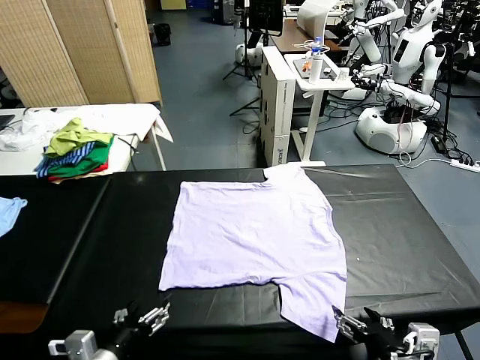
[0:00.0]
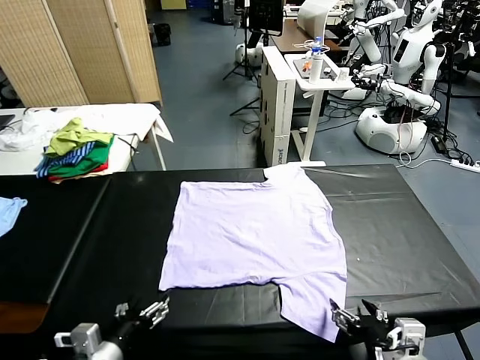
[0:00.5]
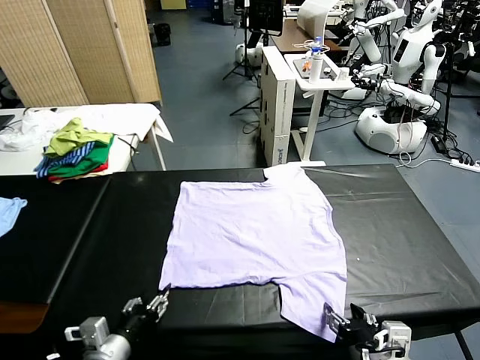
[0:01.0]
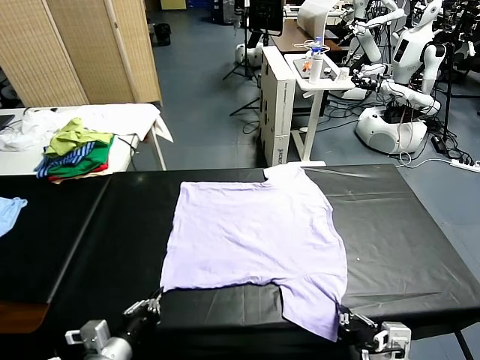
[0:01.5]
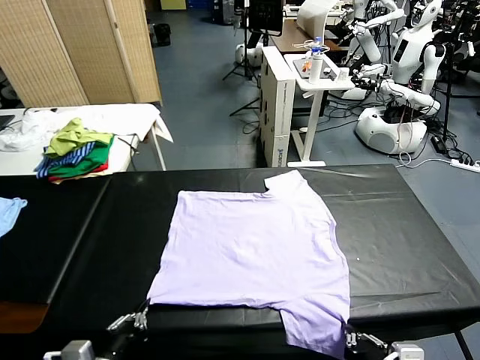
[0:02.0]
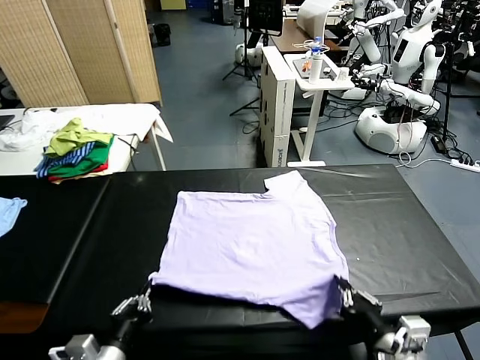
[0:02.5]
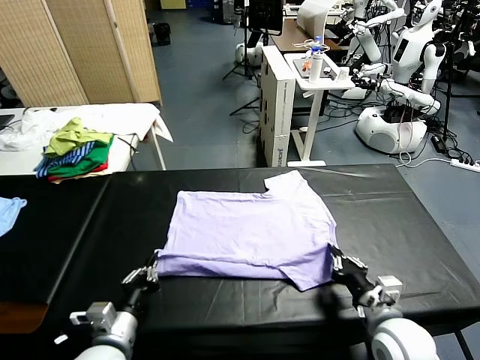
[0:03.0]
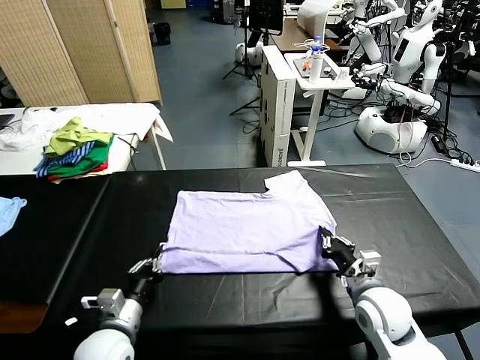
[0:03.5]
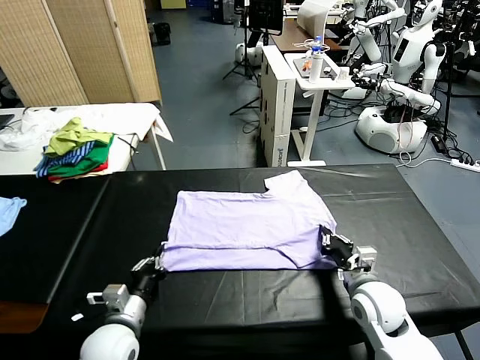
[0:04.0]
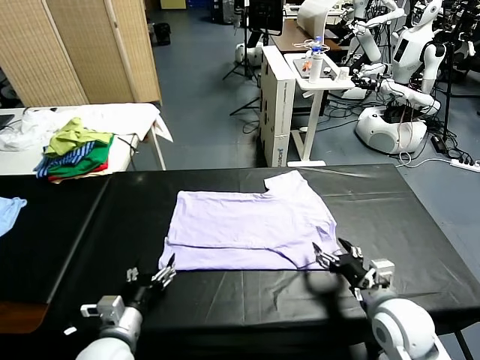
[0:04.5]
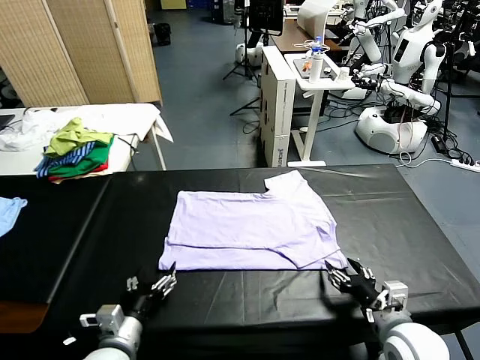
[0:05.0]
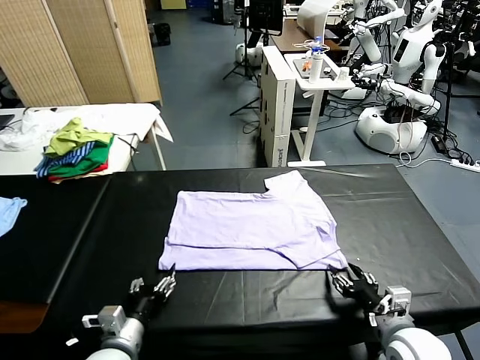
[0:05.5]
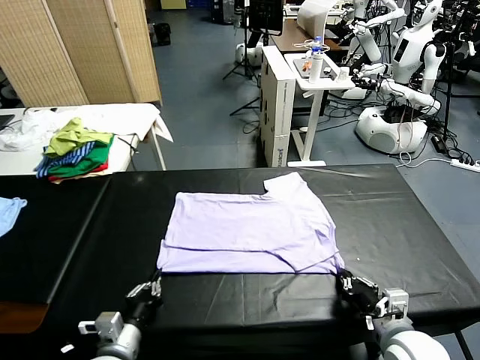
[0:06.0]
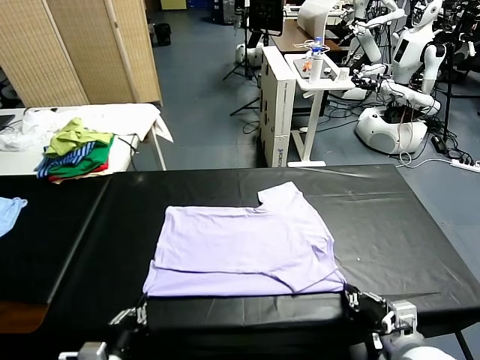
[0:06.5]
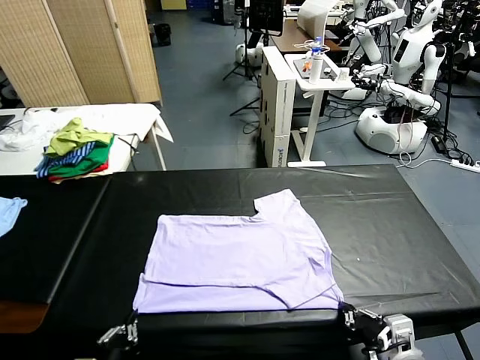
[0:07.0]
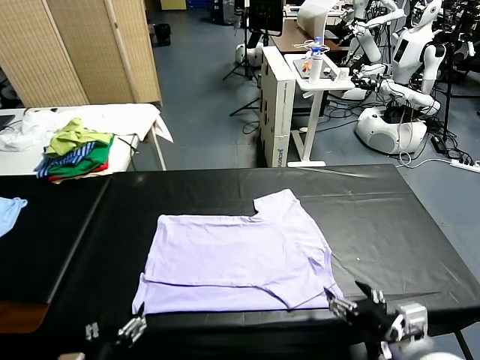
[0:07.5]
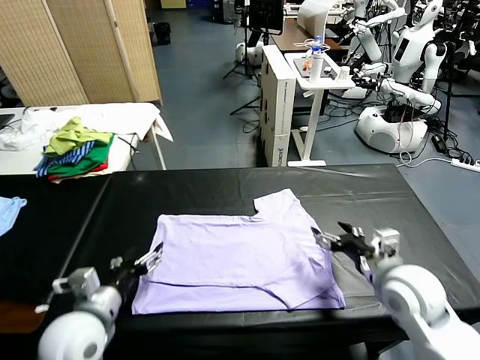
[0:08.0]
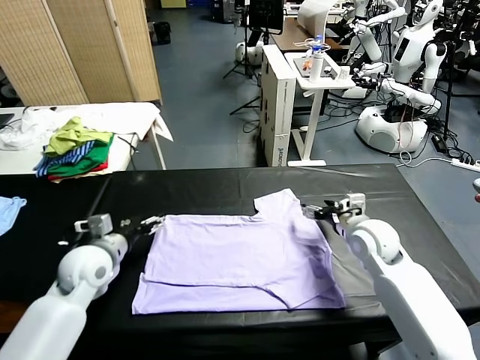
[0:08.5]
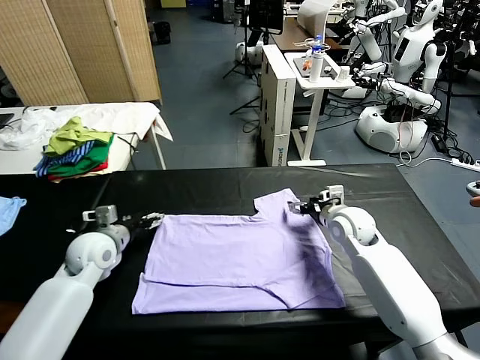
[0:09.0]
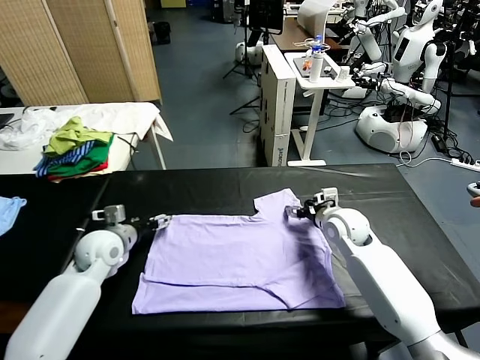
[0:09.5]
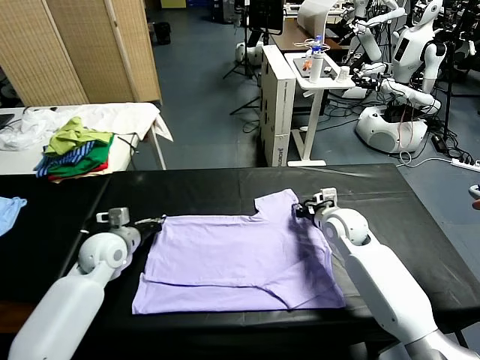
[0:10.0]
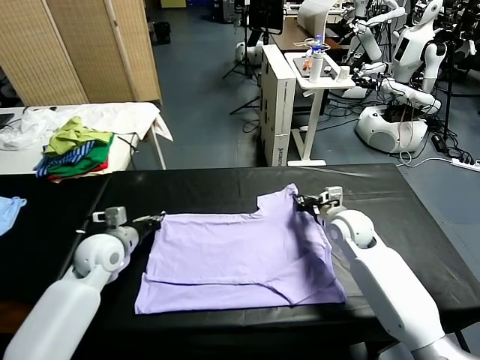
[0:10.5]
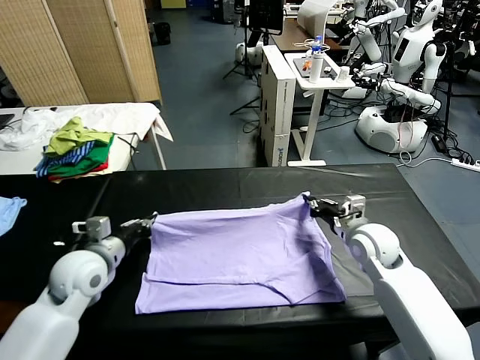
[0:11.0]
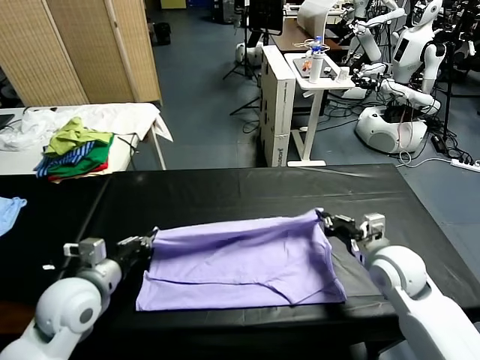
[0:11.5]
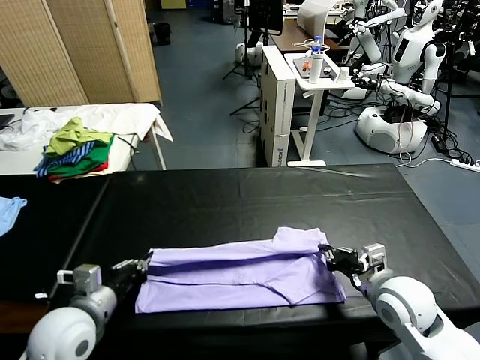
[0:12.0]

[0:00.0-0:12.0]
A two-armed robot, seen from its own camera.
Task of the whole recording: fold and organize the clothes.
Step, 0:00.0 to 0:01.5: use both grippers simultaneously to clamp the lower edge of the clothing fabric.
Step, 0:02.0 to 0:04.0: use both grippers to drag the lower edge of the fabric forward and fold it over the upper edge.
Step, 0:04.5 to 0:07.0: Drag the clothes downward with both gripper.
Step, 0:07.5 to 0:10.5: use both grippers simultaneously to clamp the upper edge of the clothing fabric.
0:02.0 to 0:04.0: The left gripper heads forward and downward, covering about 15 cm, and opens its fingers; the right gripper heads forward, covering roughly 15 cm, and opens its fingers.
0:04.0 to 0:06.0: The left gripper heads backward, covering about 5 cm, and closes; the right gripper travels backward by approximately 10 cm, and closes its fingers.
0:06.0 to 0:08.0: The right gripper moves forward, some 20 cm, and opens its fingers, while the left gripper shifts about 10 cm upward and forward, and opens its fingers.
0:08.0 to 0:10.0: The left gripper goes approximately 15 cm forward, and closes. Meanwhile the right gripper goes about 10 cm forward and downward, and closes its fingers.
0:10.0 to 0:12.0: The grippers both shift backward by approximately 20 cm.

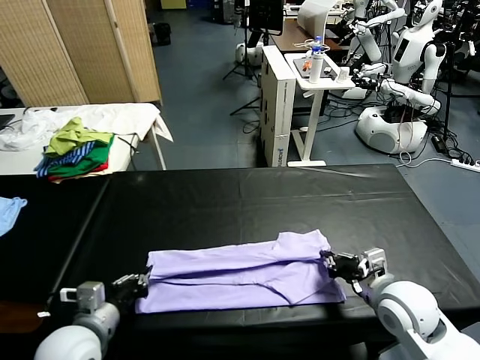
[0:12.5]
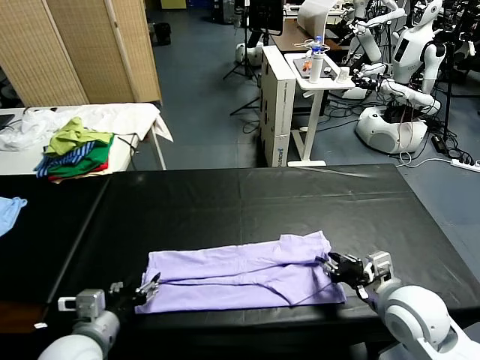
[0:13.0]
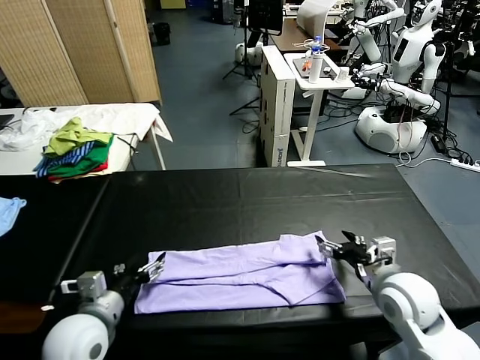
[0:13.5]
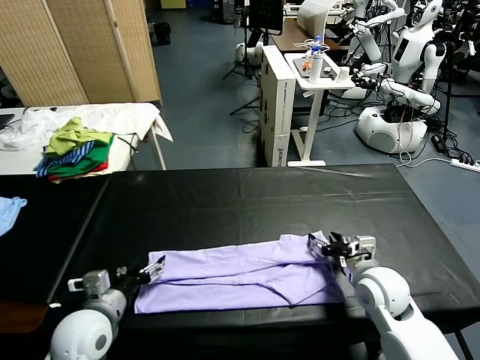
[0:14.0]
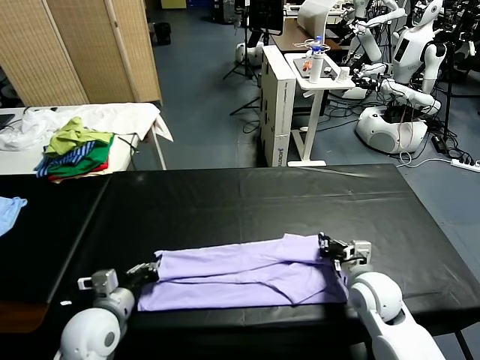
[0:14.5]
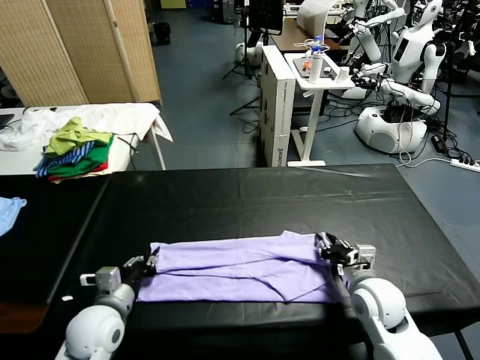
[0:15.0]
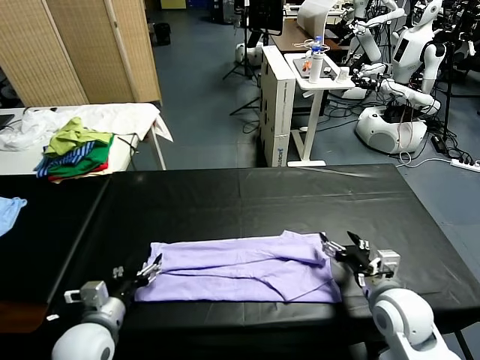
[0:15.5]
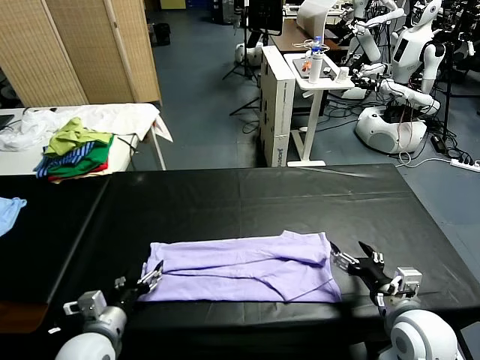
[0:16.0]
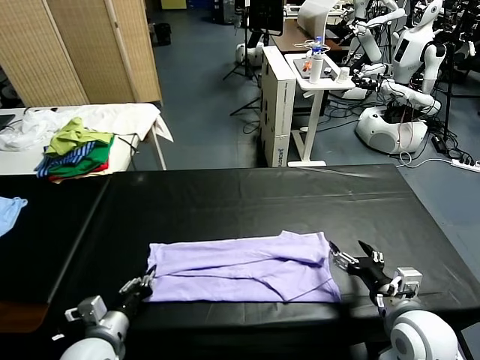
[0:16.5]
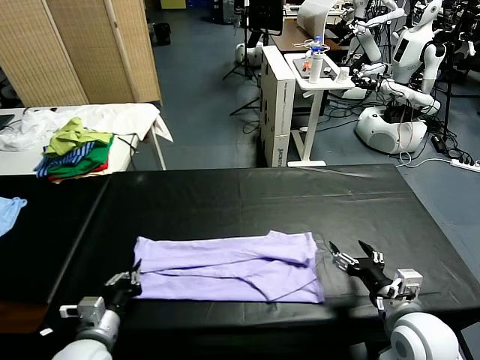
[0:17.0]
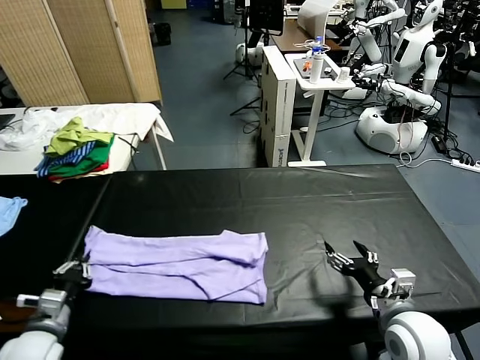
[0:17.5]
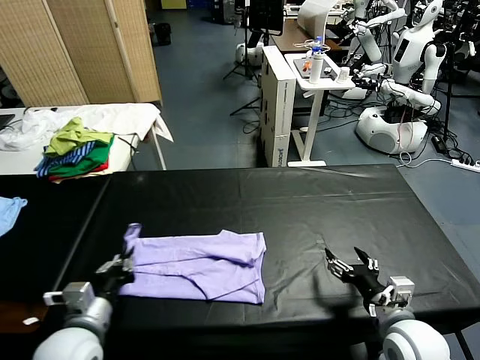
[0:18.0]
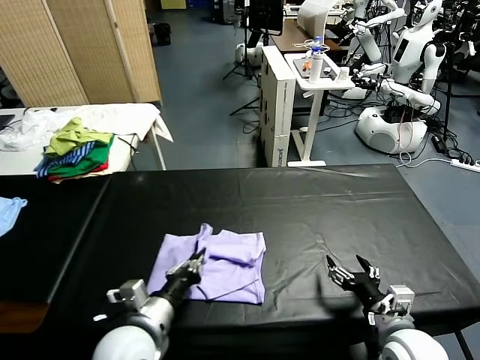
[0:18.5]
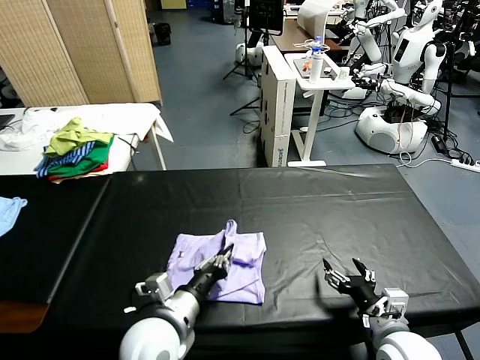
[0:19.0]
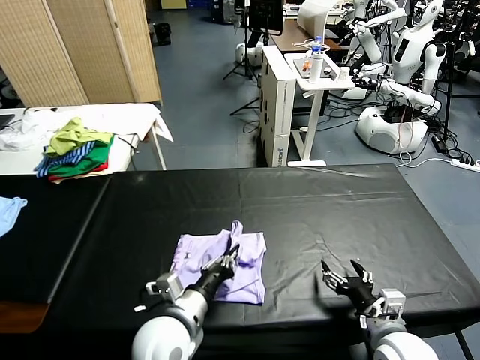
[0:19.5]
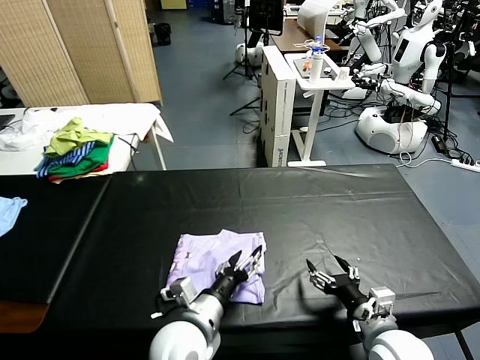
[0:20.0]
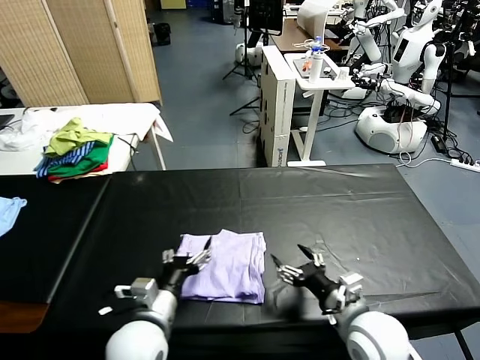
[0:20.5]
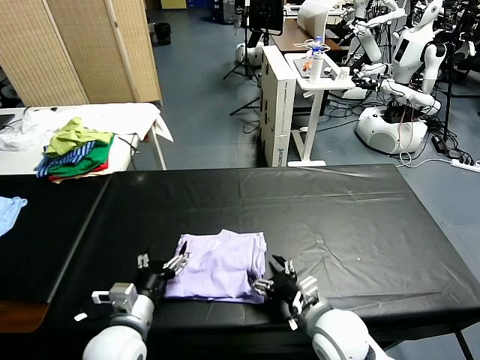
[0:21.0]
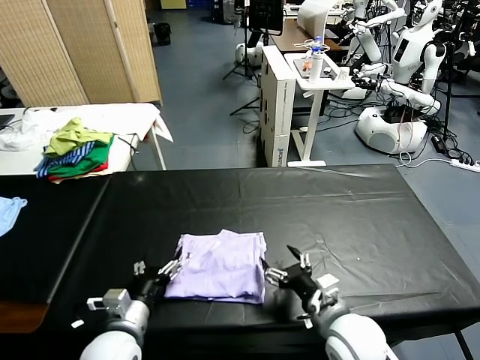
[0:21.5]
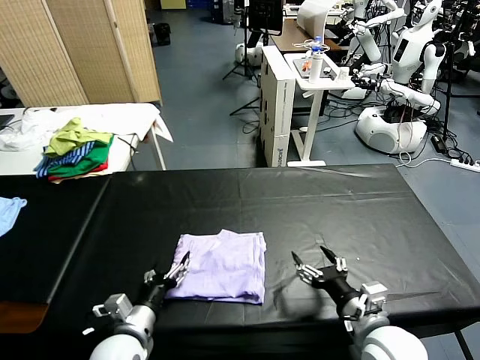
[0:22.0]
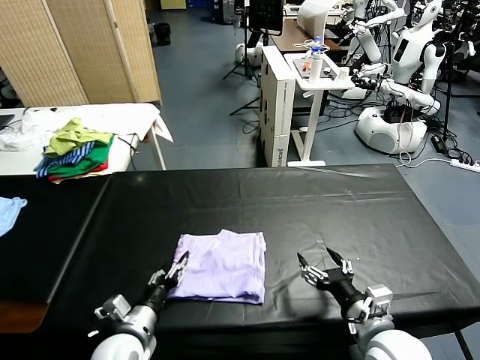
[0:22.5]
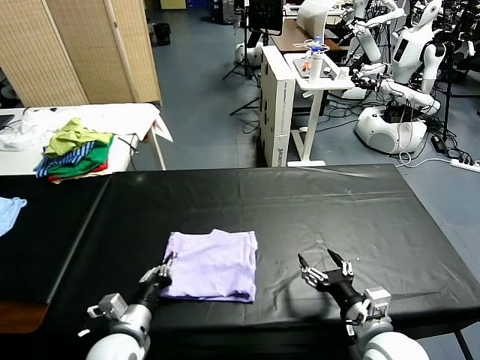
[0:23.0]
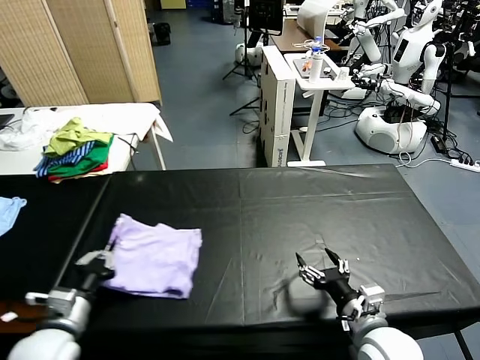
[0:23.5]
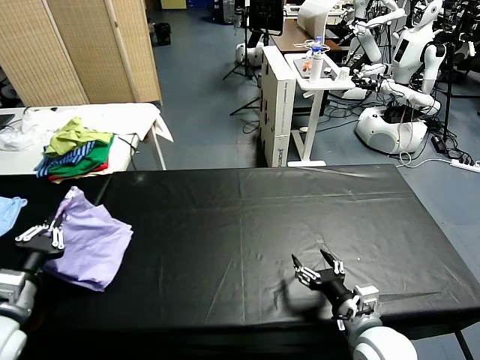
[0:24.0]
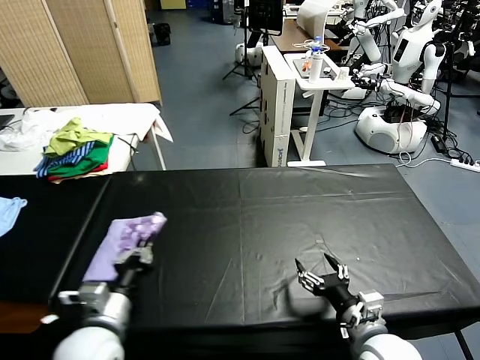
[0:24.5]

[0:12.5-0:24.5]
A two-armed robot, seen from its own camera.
Task of the whole recording: fold and organize the clothes.
Step, 0:13.0 to 0:17.0: use the left gripper to clamp the left edge of the fabric.
Step, 0:17.5 to 0:19.5: use the left gripper to drag the left edge of the fabric to the left and folds it over the right edge.
0:12.5 to 0:14.5: The left gripper moves some 5 cm, and opens, then closes again. The right gripper moves downward, some 5 cm, and opens, then closes again.
0:14.5 to 0:16.5: The left gripper ends up about 5 cm from where it was, and opens and closes again. The right gripper travels backward by some 10 cm, and opens up.
0:16.5 to 0:18.5: The left gripper is displaced to the right and upward by approximately 10 cm.
0:18.5 to 0:20.5: The right gripper shifts about 5 cm to the left. Meanwhile the left gripper goes to the right and returns, approximately 10 cm each way, and opens.
0:20.5 to 0:22.5: The right gripper ends up approximately 5 cm from where it was; the left gripper travels downward and to the left by roughly 10 cm.
0:22.5 to 0:24.5: The left gripper travels upward by some 10 cm, and closes up.

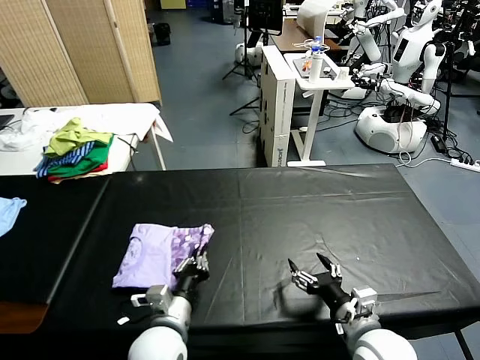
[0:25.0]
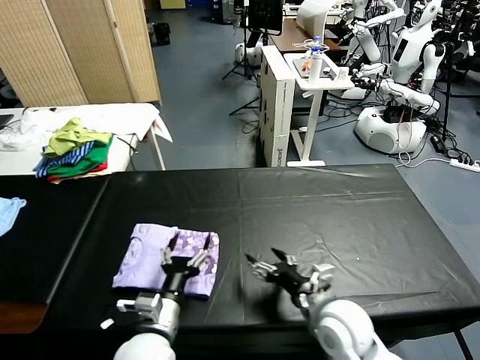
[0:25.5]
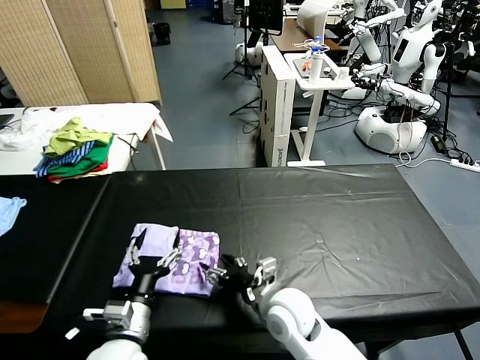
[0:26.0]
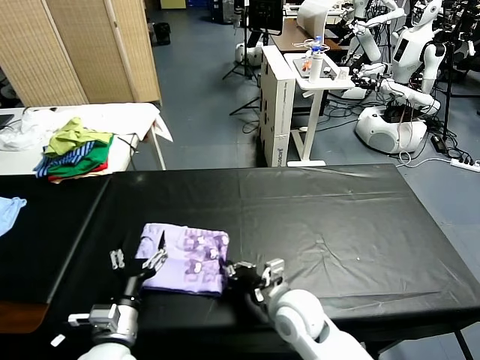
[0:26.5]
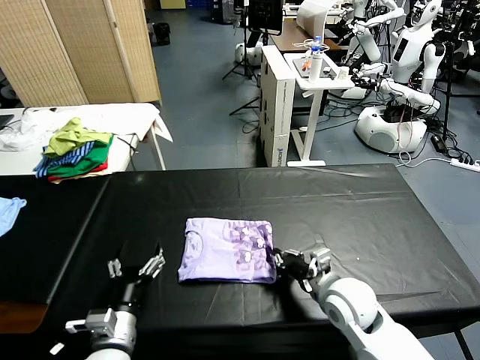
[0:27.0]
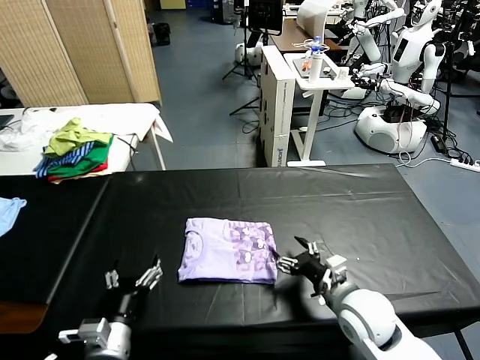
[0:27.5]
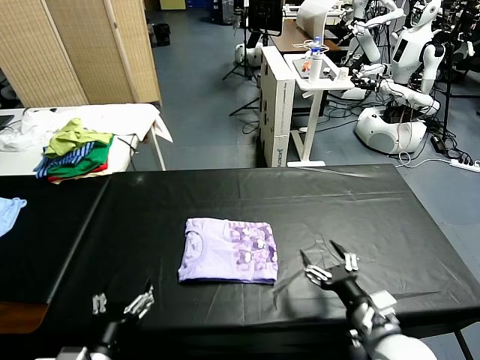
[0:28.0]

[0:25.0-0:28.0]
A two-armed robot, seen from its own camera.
Task of the whole recording: fold and organize the clothes.
Step, 0:25.5 to 0:27.0: Drag the clothes to the center of the table.
0:25.0 to 0:26.5: The left gripper is displaced to the left by some 5 cm, and opens up. The right gripper travels to the left and forward by some 15 cm, and closes up.
0:26.5 to 0:28.0: The left gripper moves backward, some 5 cm. The right gripper heads to the right and backward, covering roughly 20 cm, and opens up.
